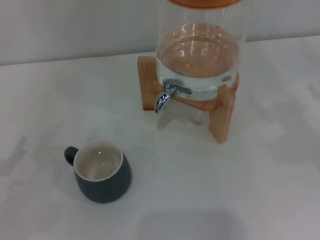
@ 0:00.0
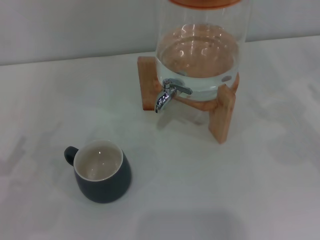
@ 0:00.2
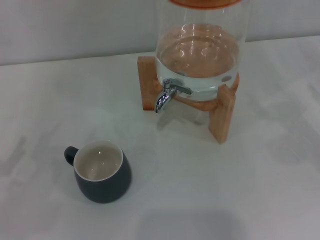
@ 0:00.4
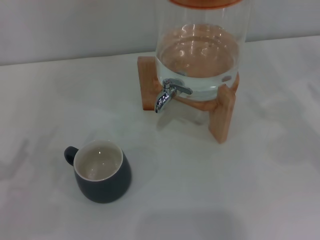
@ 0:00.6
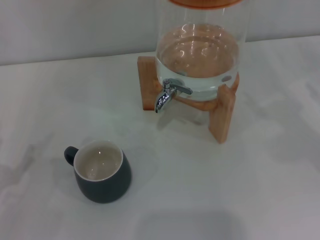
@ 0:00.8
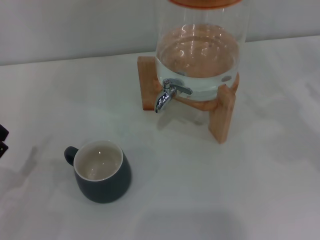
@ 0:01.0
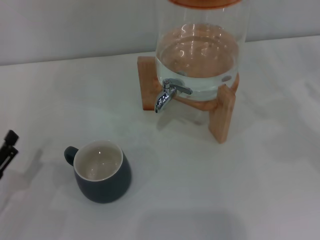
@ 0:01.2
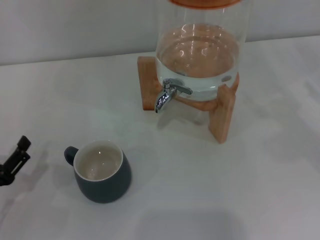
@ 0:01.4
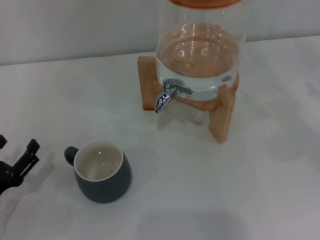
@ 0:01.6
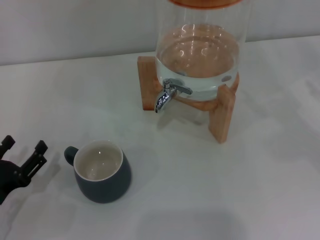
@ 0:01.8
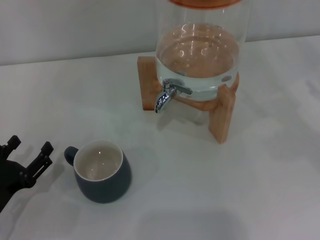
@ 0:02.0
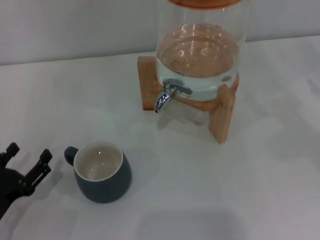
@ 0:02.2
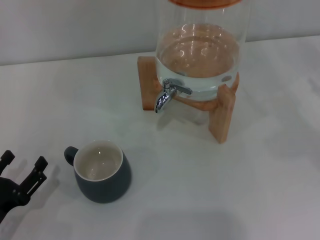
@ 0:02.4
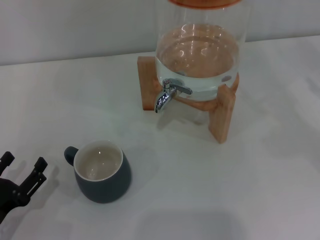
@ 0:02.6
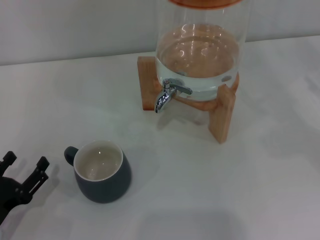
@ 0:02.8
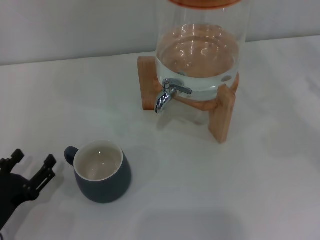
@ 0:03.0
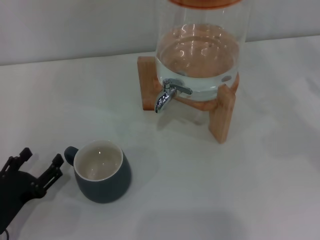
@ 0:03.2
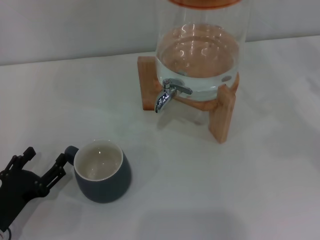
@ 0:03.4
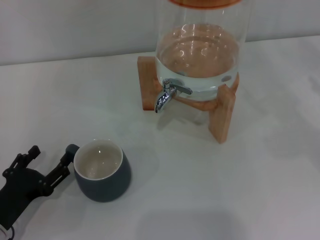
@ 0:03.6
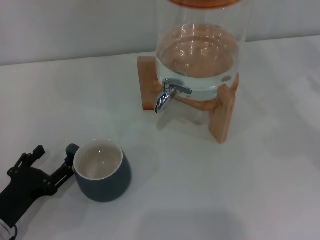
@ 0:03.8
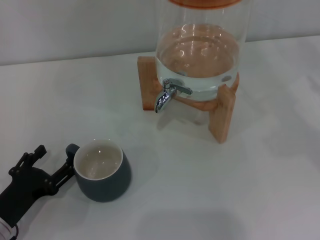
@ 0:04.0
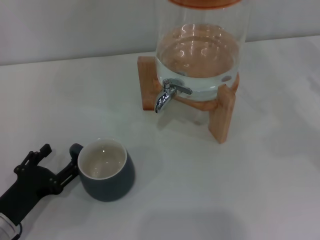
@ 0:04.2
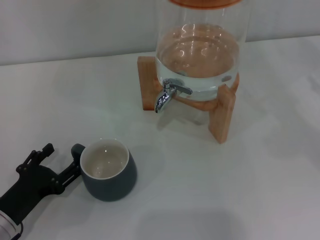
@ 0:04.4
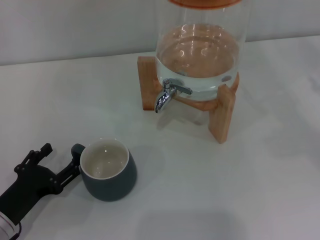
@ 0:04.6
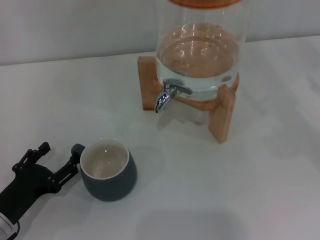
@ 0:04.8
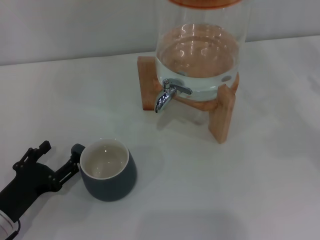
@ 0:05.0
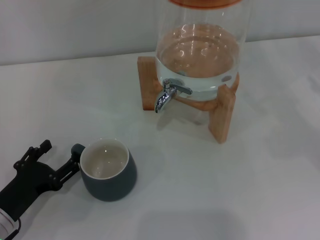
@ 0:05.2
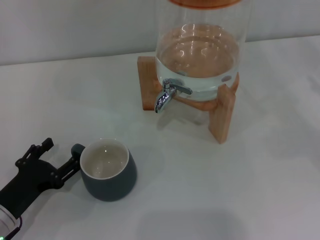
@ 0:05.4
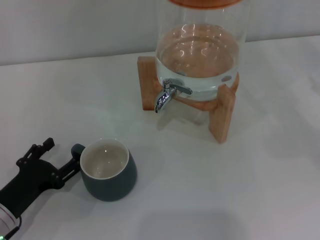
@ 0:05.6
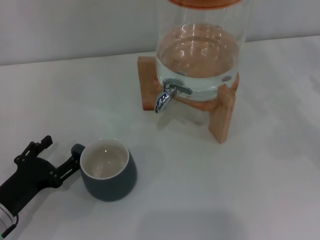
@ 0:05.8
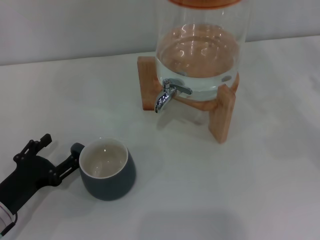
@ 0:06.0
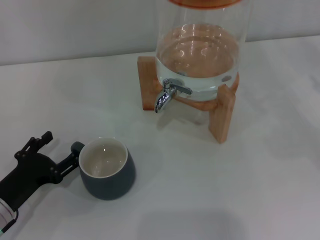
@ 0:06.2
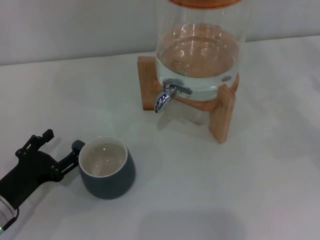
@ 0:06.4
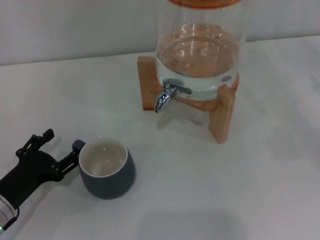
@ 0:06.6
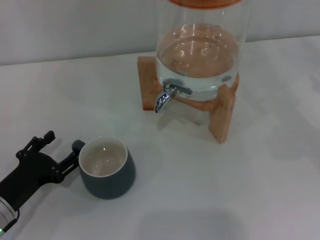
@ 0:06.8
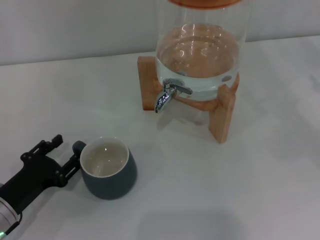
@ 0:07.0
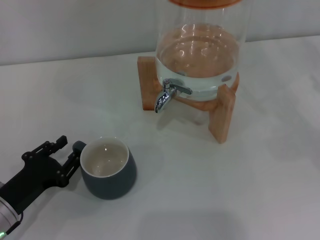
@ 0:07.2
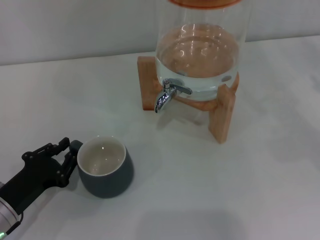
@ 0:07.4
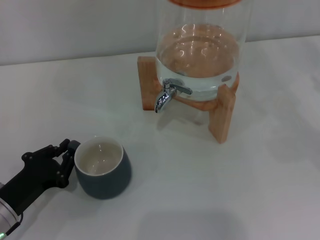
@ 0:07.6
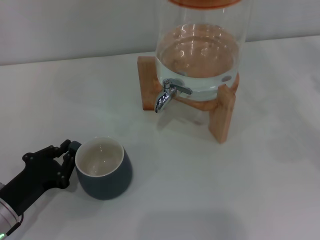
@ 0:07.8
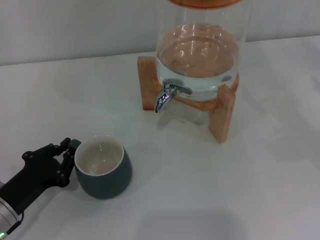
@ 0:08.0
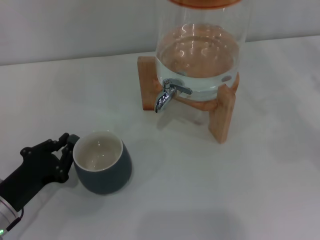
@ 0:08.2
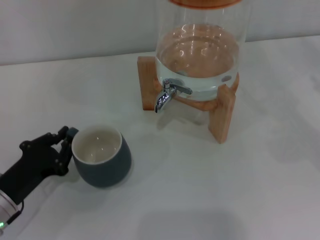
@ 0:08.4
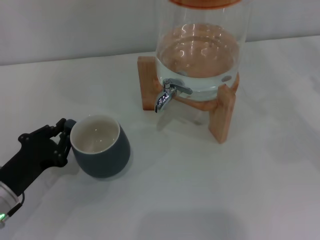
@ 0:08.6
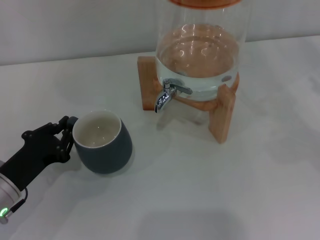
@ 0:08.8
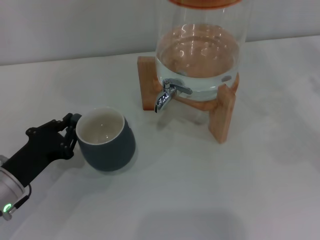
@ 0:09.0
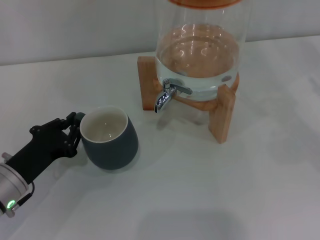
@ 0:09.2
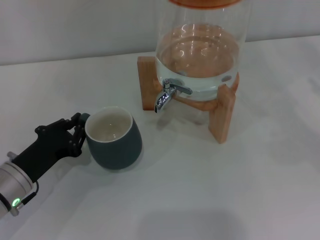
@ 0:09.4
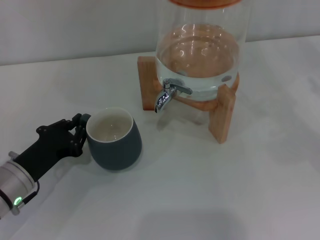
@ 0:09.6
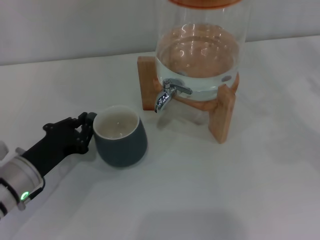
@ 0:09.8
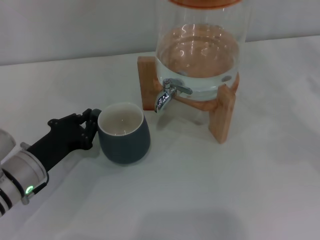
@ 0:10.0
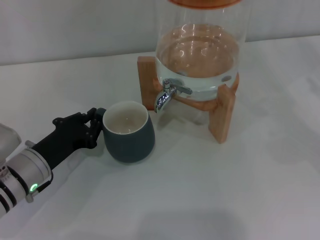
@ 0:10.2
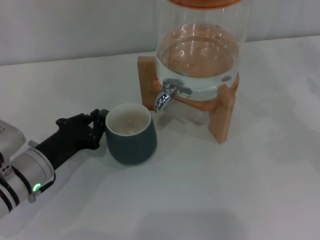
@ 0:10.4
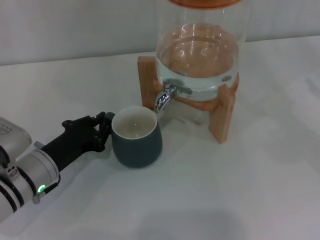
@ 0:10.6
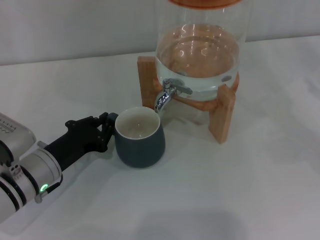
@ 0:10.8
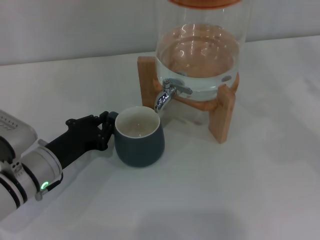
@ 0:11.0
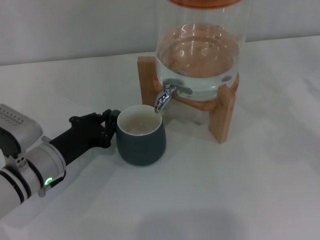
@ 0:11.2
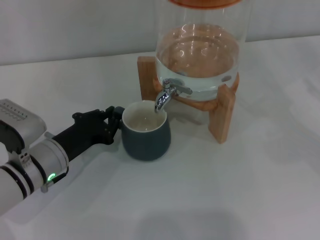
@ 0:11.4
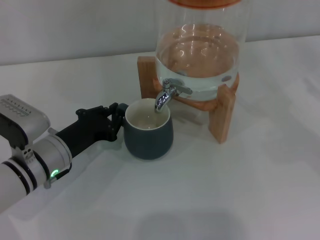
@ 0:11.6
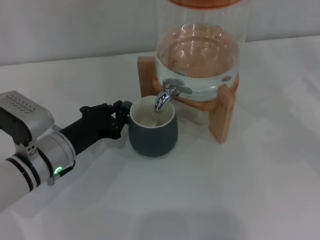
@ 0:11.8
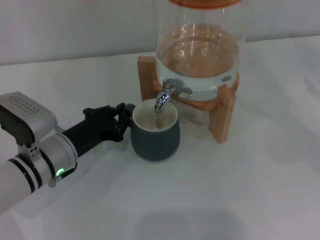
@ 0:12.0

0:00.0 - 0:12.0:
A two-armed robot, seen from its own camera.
Task of the whole recording: the left gripper pick up the black cup and place it horizontally under the faucet, the right gripper turn on the faucet to fill the cup, and then turn off the faucet.
0:00.0 - 0:01.6: The left gripper heads downward and to the right, covering approximately 10 cm.
0:01.6 - 0:06.0: The grippers make only small movements.
0:06.0 - 0:07.6: The left gripper closes.
0:07.6 - 0:09.0: There are only small adjustments of the grippers.
0:09.0 - 0:10.4: There are only small adjustments of the grippers.
0:10.4 - 0:12.0: The grippers stay close to where they were, moving slightly.

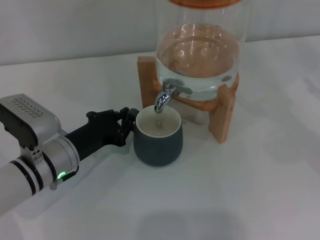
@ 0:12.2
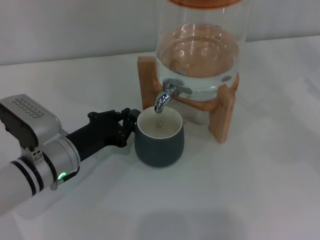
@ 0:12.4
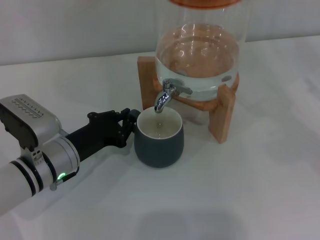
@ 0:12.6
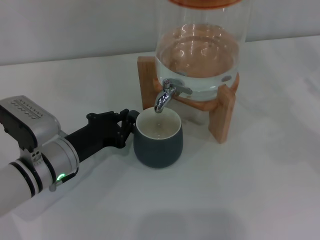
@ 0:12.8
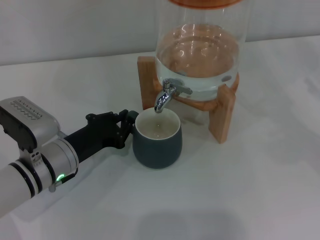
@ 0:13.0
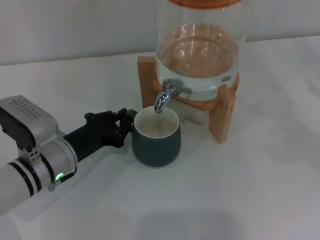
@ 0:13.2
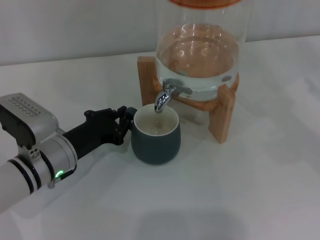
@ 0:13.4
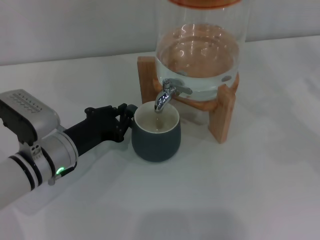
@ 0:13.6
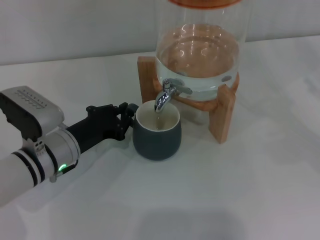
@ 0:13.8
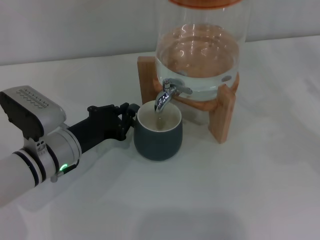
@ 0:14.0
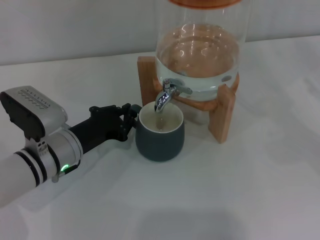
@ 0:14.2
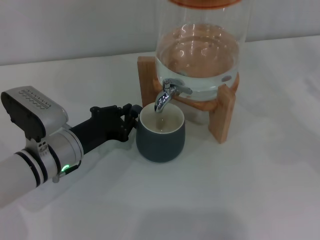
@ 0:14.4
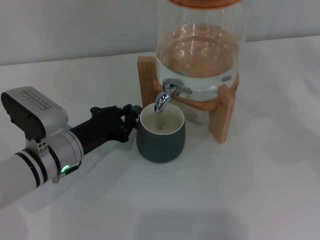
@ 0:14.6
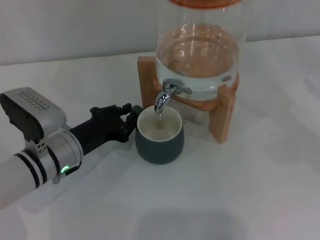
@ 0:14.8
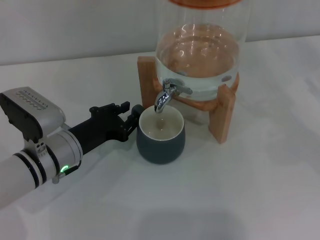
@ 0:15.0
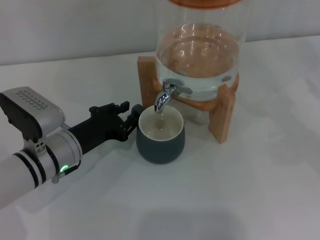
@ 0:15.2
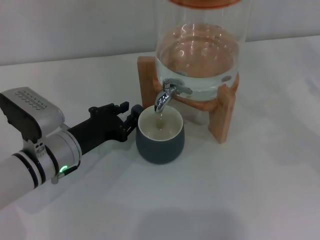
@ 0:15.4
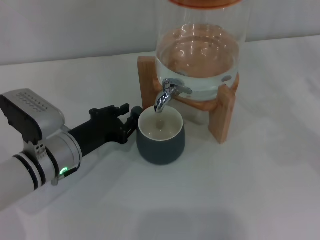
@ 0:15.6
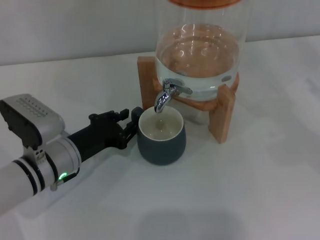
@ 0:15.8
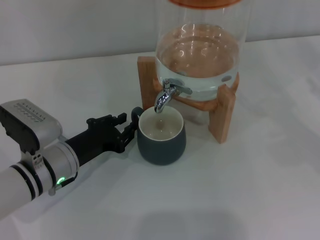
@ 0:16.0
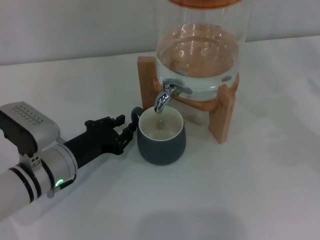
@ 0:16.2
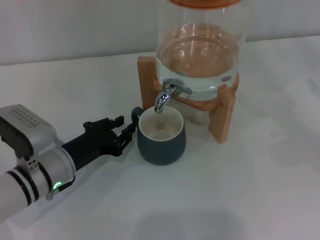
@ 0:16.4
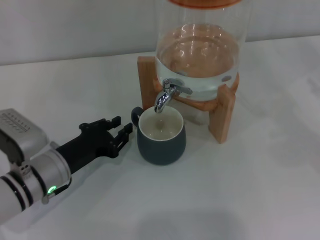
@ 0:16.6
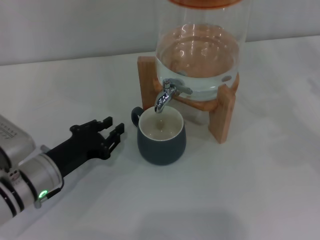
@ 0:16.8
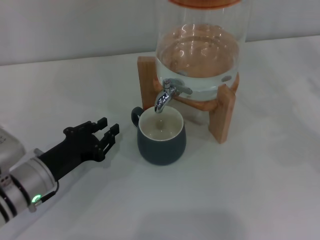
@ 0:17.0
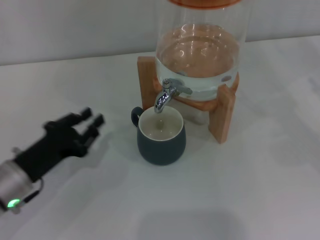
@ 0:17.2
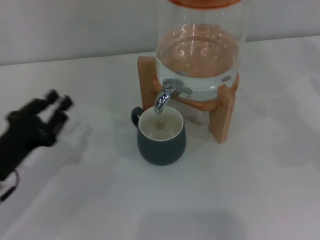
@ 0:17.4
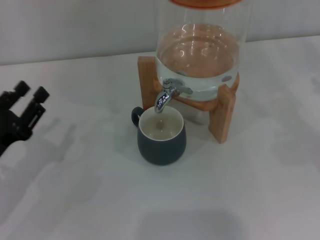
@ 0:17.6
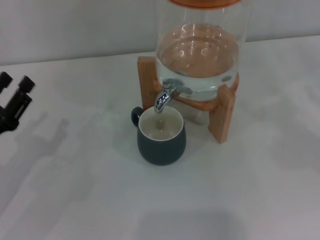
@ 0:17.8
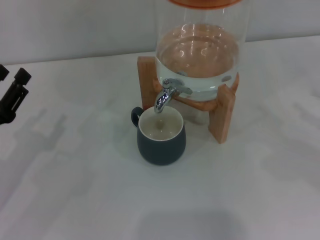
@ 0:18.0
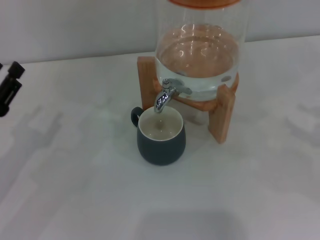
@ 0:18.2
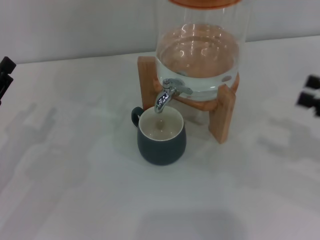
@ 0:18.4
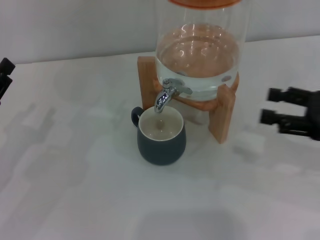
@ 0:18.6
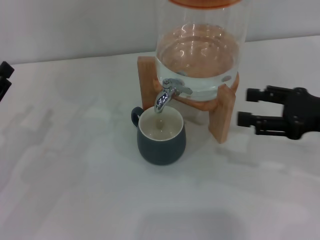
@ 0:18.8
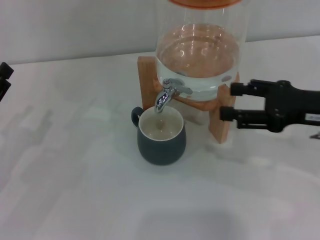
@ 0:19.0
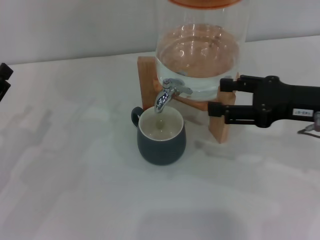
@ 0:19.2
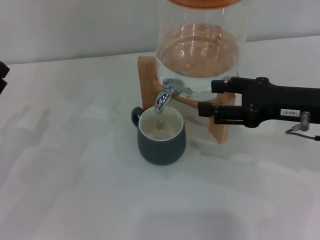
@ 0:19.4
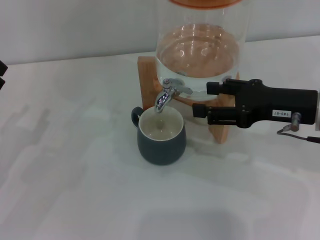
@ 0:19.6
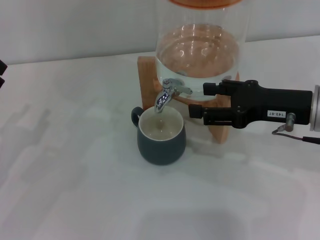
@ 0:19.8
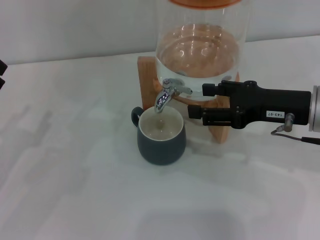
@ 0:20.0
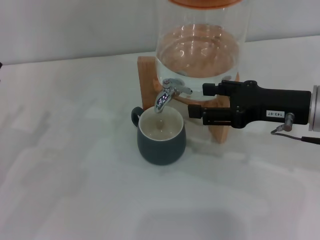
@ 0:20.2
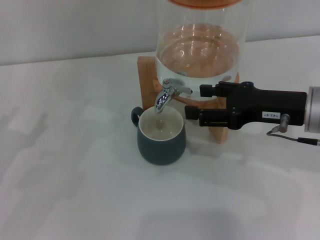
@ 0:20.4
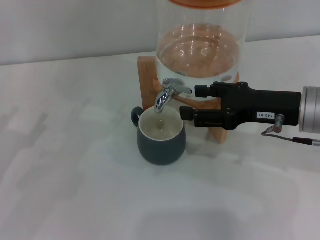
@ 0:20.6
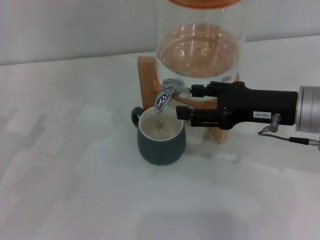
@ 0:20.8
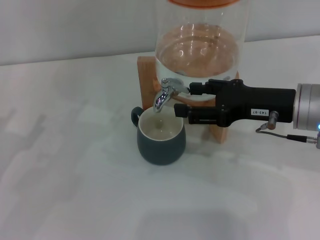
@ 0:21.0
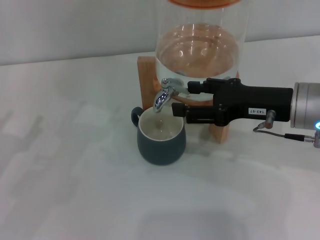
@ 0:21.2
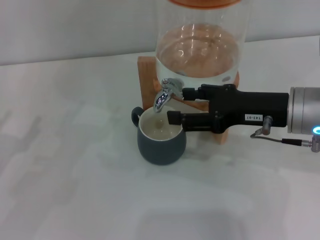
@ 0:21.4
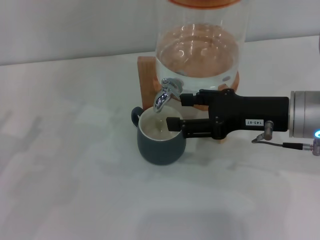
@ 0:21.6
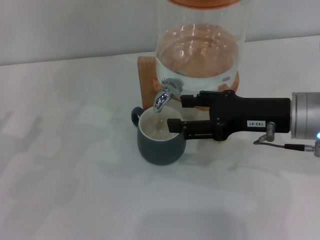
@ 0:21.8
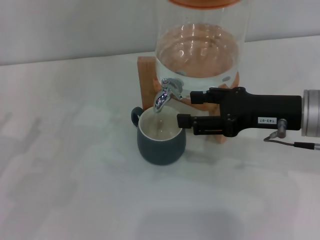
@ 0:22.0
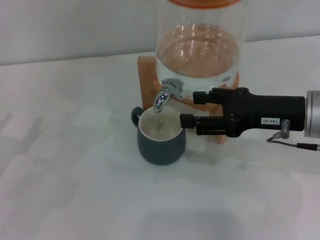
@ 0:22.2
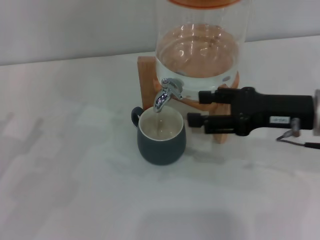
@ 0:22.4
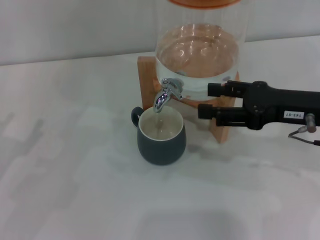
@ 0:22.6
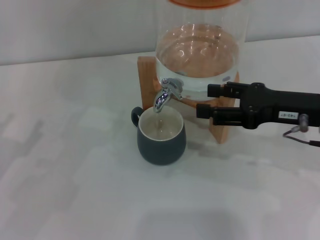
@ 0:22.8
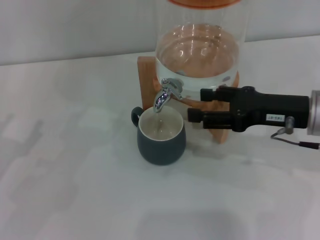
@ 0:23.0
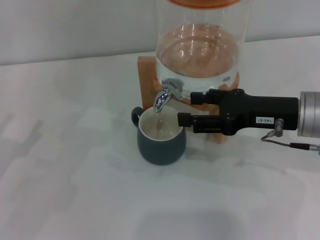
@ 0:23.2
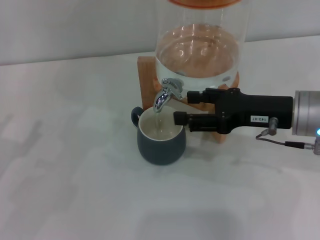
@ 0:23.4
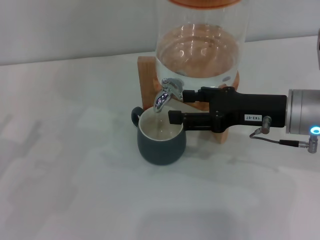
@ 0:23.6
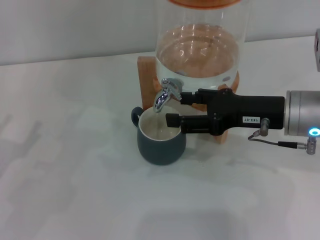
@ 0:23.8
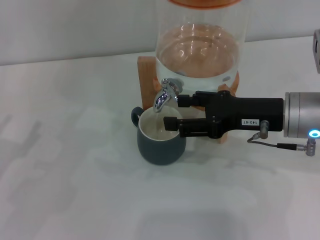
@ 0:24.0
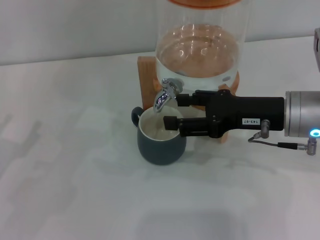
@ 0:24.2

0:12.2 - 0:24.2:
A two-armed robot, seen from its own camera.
Task of the whole recording: the left gripper pick up the black cup and place it horizontally under the faucet, the right gripper turn on the faucet to fill the cup, and then turn off the faucet.
Step, 0:12.2 - 0:16.6: Move the cup beneath the water dispenser nozzle with the left gripper.
Step, 0:16.8 - 0:24.2: Open the dispenser valve and fill the cup with water with the right gripper.
0:12.2 - 0:15.2: Both grippers stay about where they are.
0:15.2 - 0:16.6: The grippers move only a little.
0:16.6 - 0:18.2: The left gripper is displaced to the left by roughly 10 cm. The right gripper changes place by roughly 5 cm.
0:18.2 - 0:19.8: The right gripper shifts approximately 15 cm to the left and forward.
0:19.8 - 0:24.2: There are only small adjustments of the grippers.
